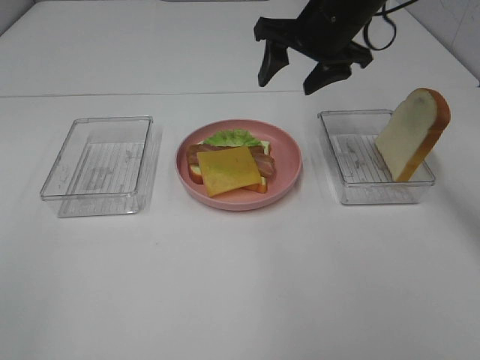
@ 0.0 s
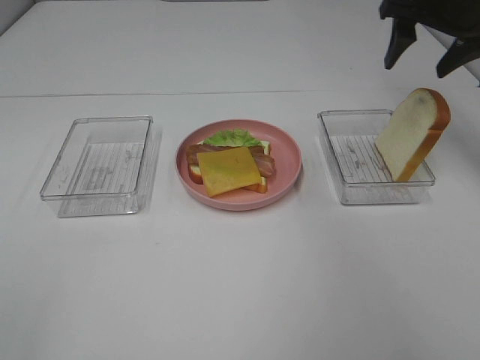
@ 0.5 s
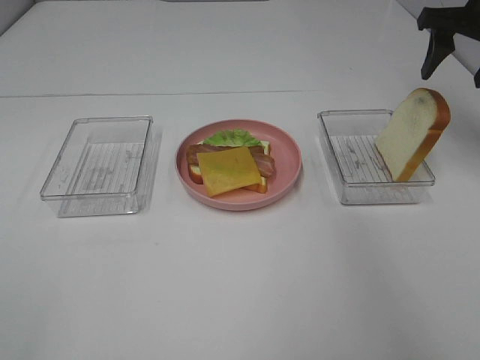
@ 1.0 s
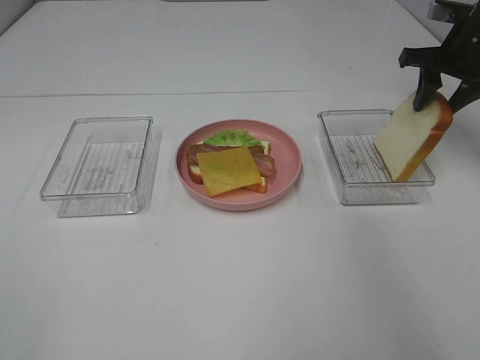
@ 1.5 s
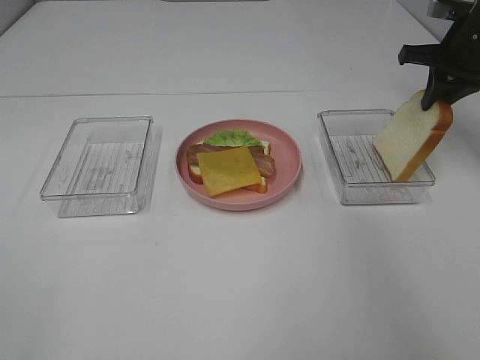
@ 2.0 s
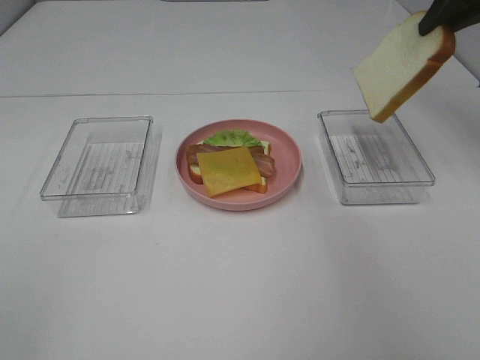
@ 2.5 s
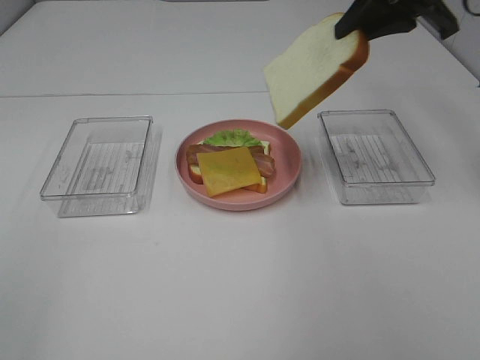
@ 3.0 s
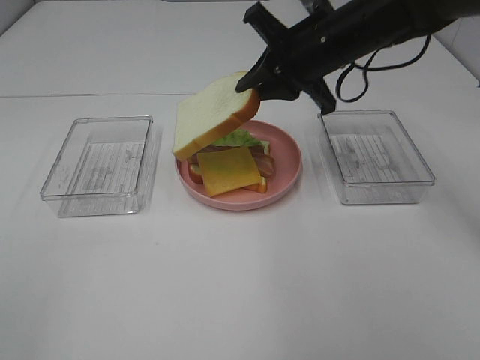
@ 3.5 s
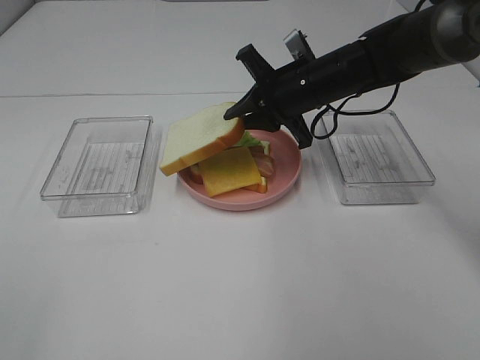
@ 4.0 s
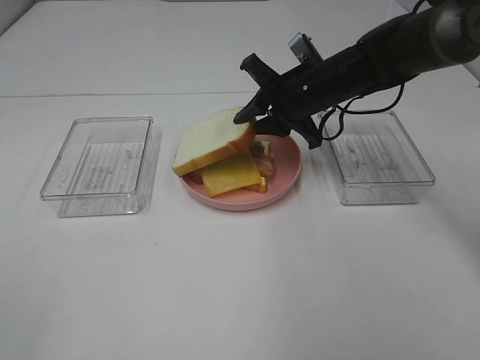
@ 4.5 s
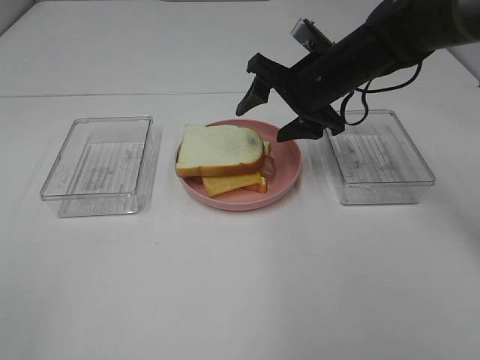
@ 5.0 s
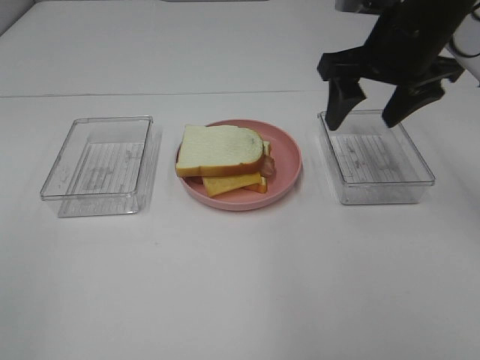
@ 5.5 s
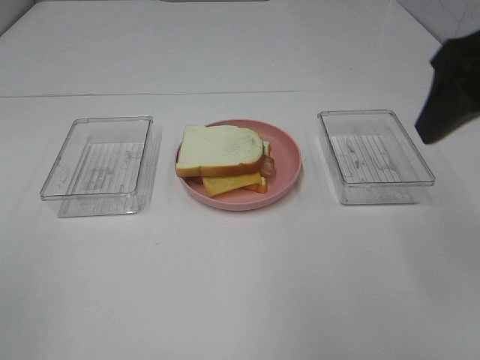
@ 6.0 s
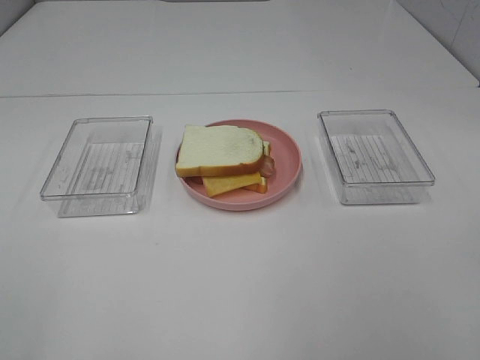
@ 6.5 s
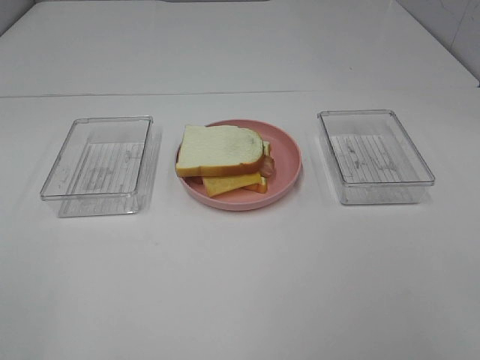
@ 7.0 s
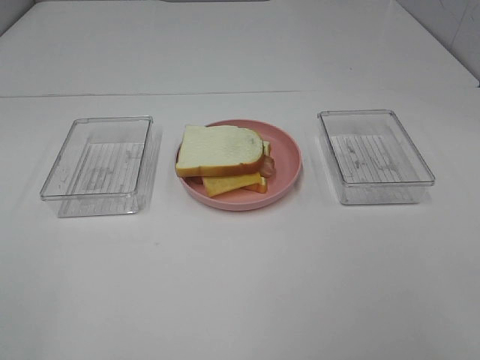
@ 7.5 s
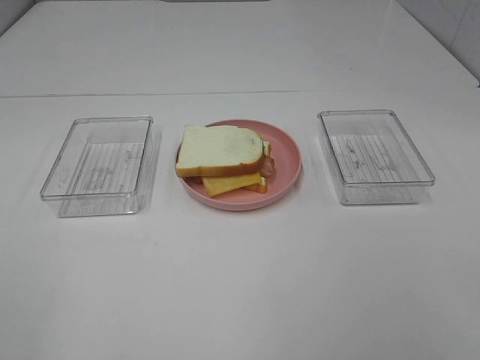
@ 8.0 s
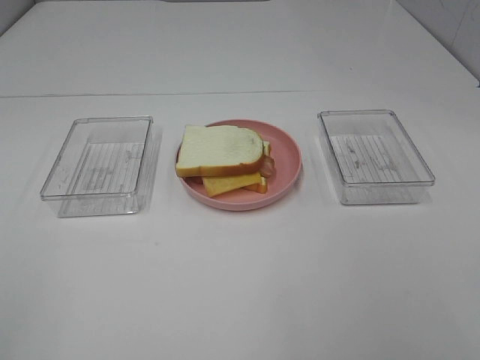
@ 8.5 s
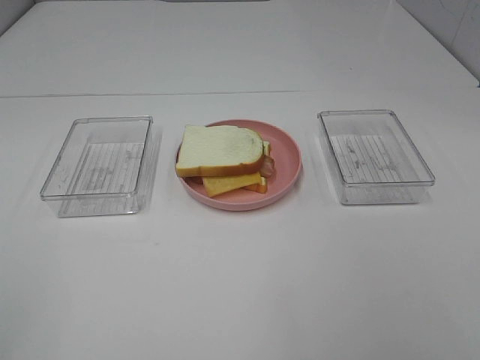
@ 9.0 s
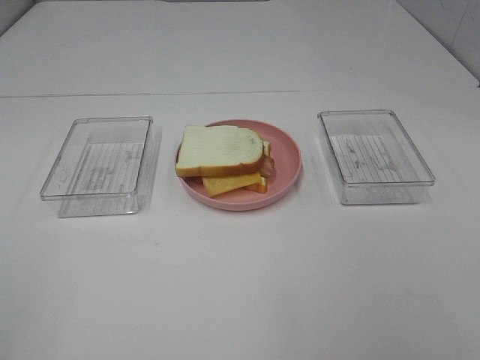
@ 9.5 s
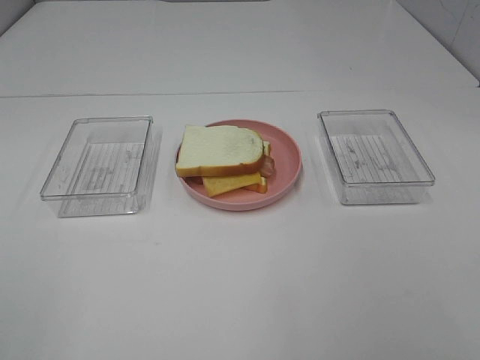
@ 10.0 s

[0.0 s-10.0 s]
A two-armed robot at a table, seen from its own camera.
Task of the whole recording: Make sandwiches.
Step, 0.0 to 2.0 s: Right hand:grab the bread slice.
Step, 2.5 to 5.0 s: Right hand:place the bread slice on the cheese slice.
0.0 to 2.0 s: The right gripper heads to the right, covering approximately 20 cm, and closes.
2.0 to 4.0 s: The right gripper is displaced to the left by roughly 20 cm.
4.0 to 6.0 s: The right gripper is displaced backward, upward and to the right by about 30 cm, and opens its fingers.
6.0 to 8.0 s: The right gripper heads backward, covering some 20 cm.

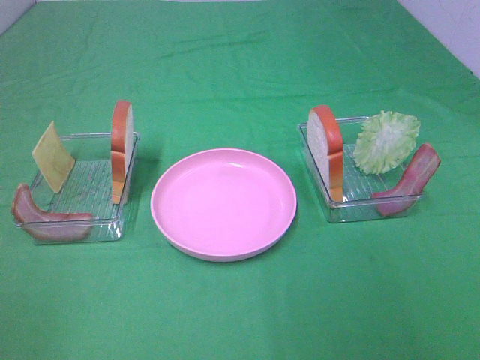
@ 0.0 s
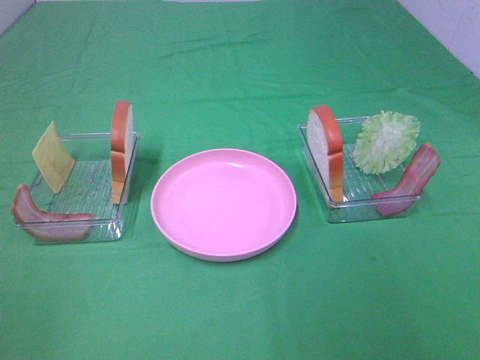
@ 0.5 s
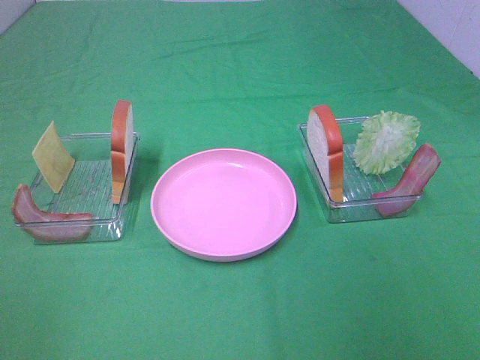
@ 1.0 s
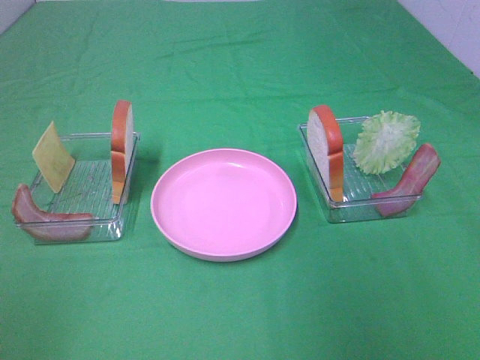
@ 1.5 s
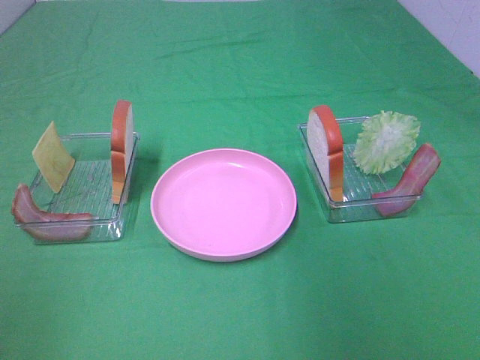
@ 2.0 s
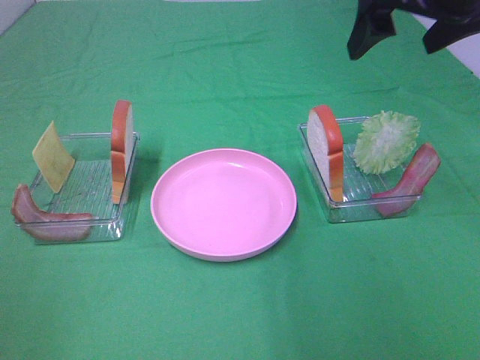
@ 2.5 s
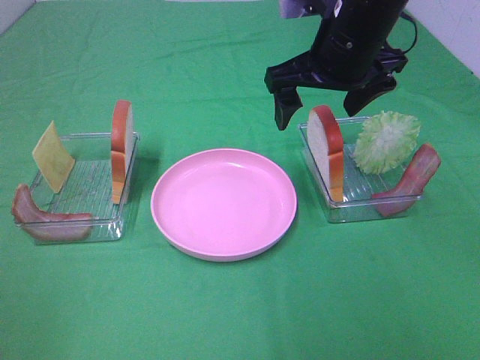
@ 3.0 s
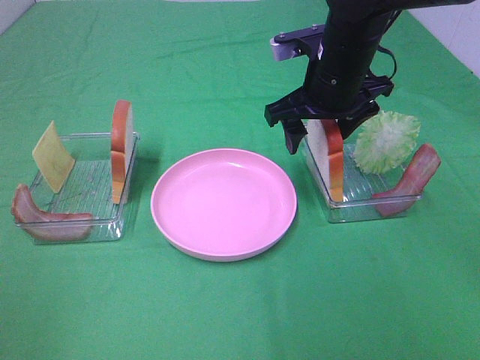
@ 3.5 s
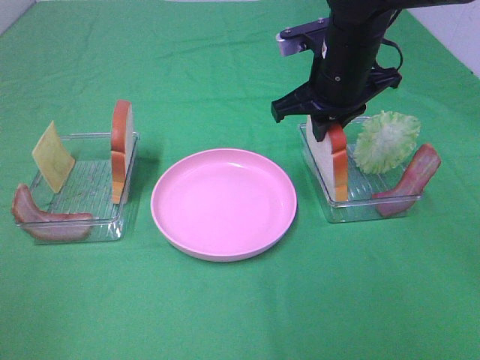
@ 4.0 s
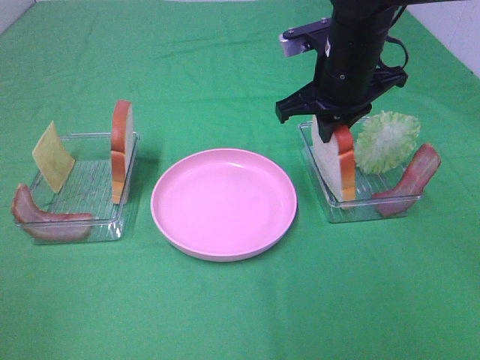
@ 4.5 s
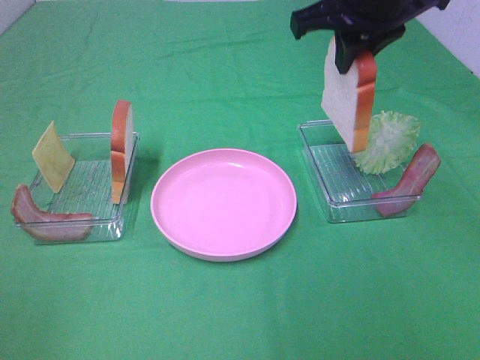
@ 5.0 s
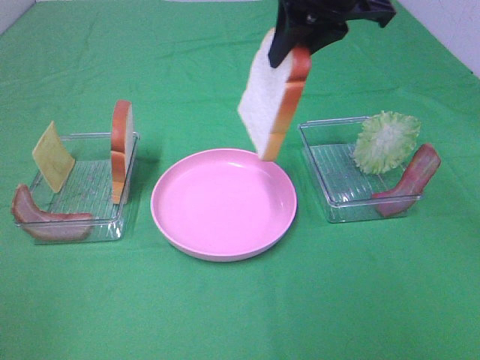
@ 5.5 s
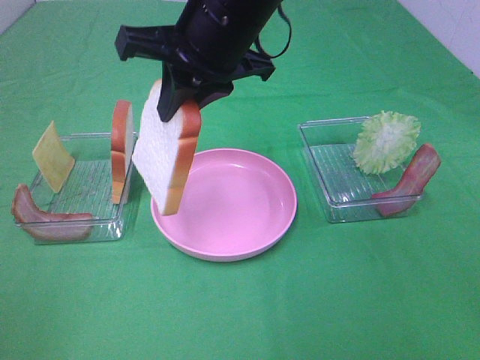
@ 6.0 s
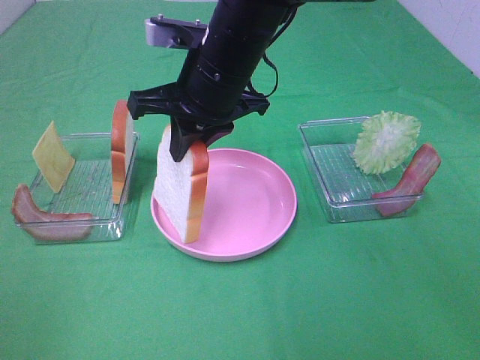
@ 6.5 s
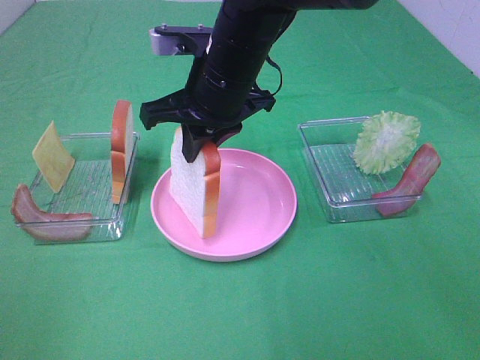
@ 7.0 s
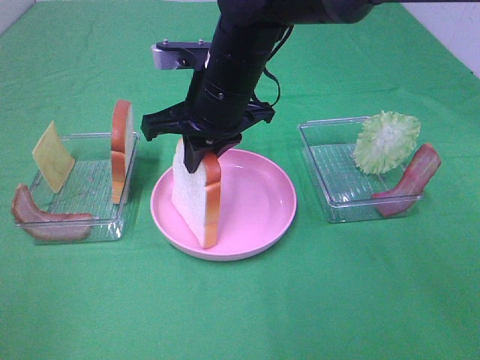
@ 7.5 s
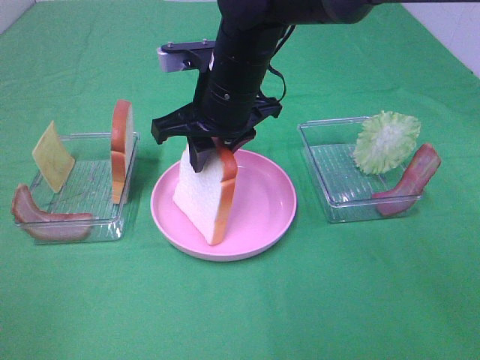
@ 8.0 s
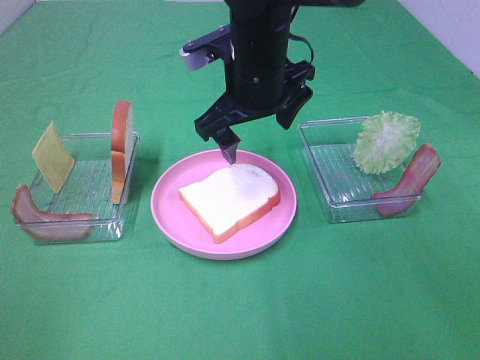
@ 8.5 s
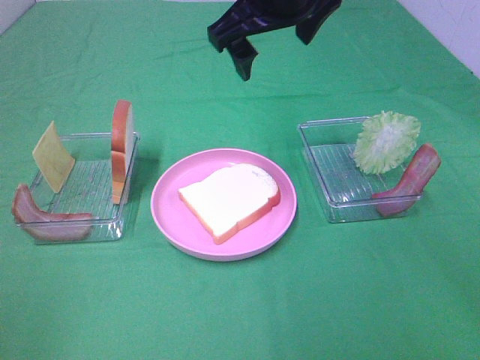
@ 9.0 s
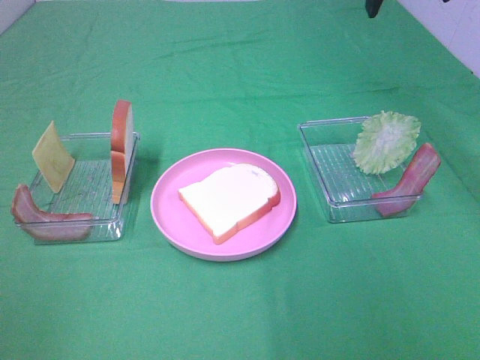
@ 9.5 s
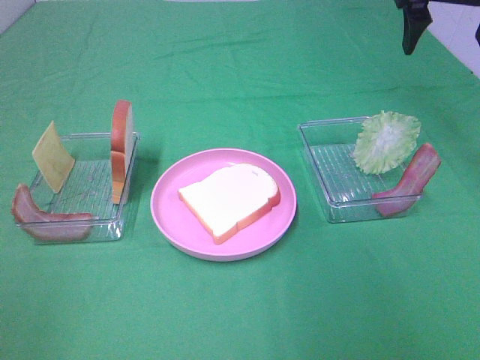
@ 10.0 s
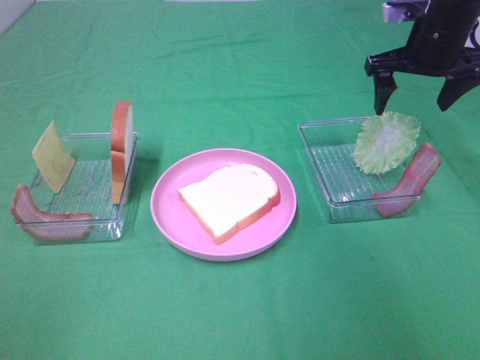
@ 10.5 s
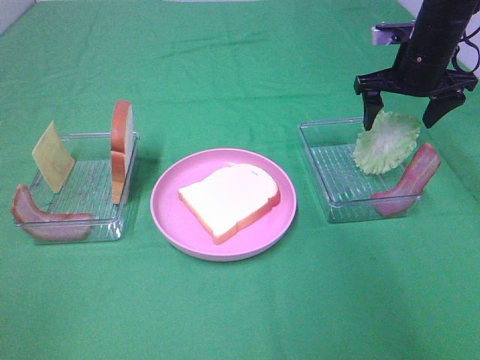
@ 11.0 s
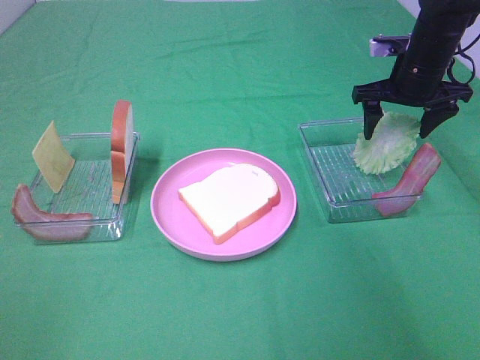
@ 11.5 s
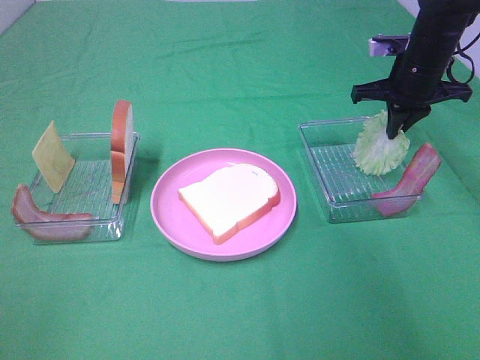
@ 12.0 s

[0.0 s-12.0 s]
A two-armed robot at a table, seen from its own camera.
Task of the whole recording: Make sandwiches.
Step, 0.0 to 4.0 s: Right hand:grab the bread slice.
Step, 4.5 to 8.0 s: Right hand:place the bread slice on the plate.
2.0 to 4.0 s: The right gripper shifts approximately 25 cm downward, to the left and forward, and closes its fingers.
4.0 to 6.0 s: The right gripper goes approximately 15 cm to the left, upward and backward.
6.0 to 8.0 s: The right gripper shifts about 10 cm downward.
8.0 to 10.0 s: The right gripper heads to the right and upward, covering roughly 30 cm, and opens.
10.0 to 12.0 s: The right gripper shifts approximately 15 cm downward, and closes up.

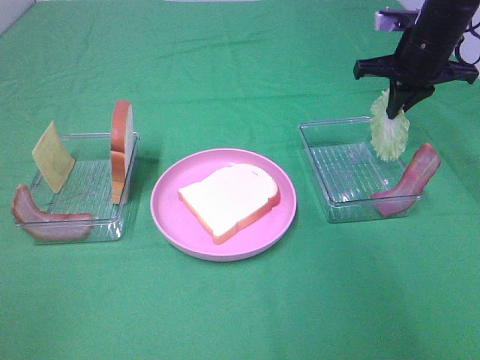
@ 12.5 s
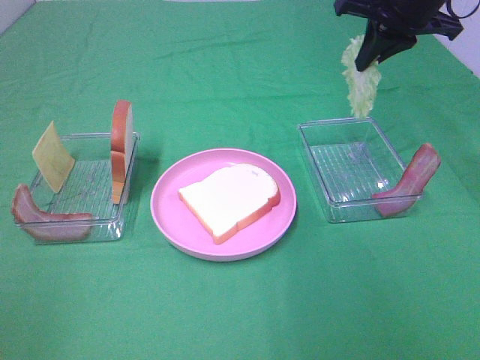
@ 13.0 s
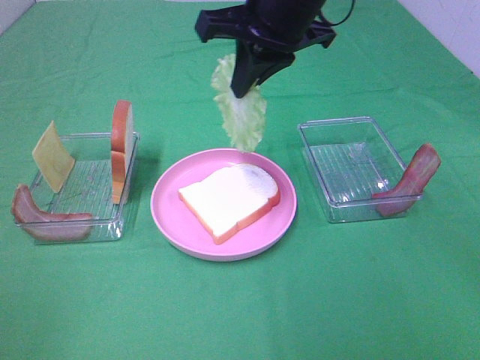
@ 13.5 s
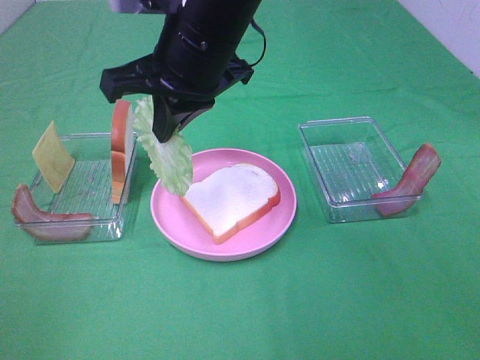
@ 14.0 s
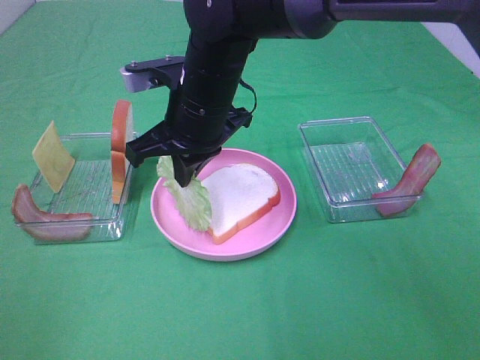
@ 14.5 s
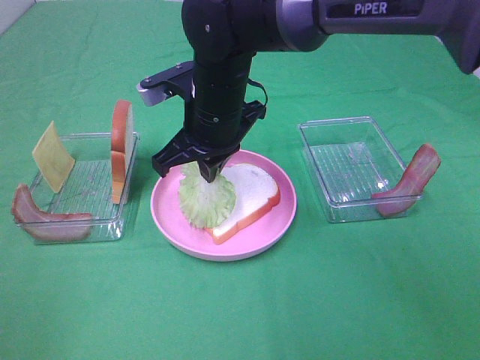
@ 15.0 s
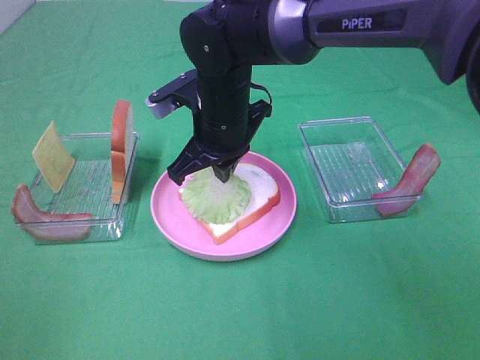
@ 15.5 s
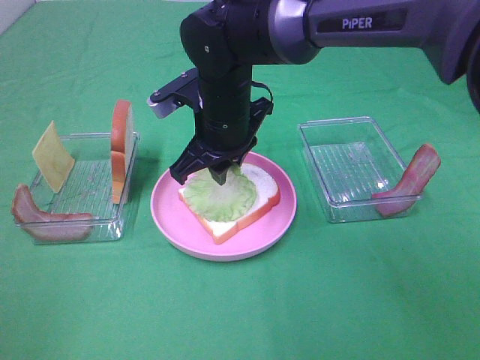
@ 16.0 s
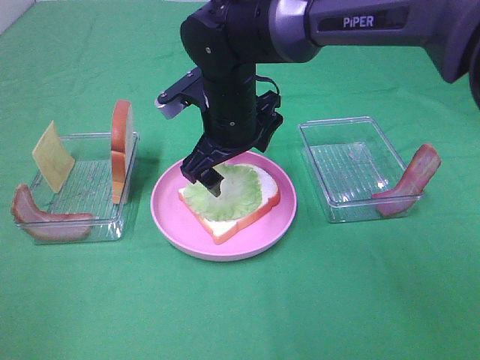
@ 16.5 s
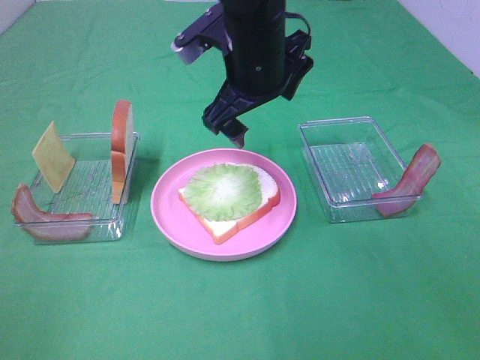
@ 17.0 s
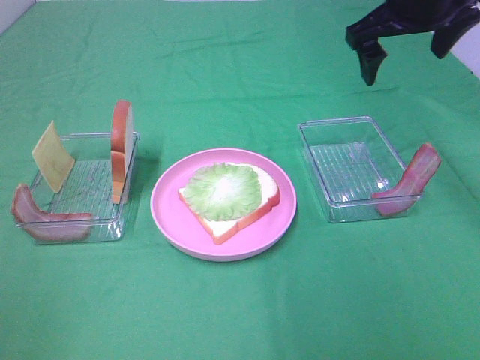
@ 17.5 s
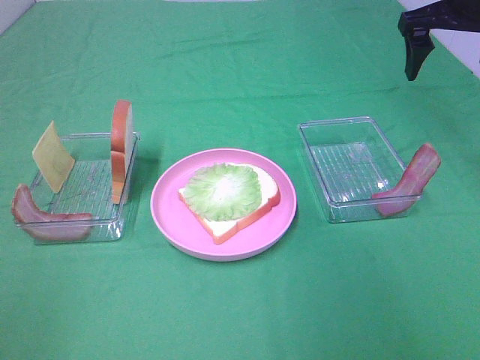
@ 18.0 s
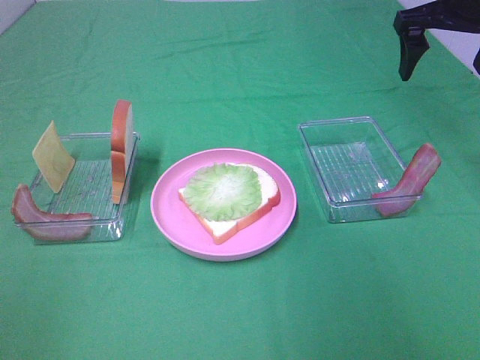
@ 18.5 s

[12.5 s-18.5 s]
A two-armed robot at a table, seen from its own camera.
Task of the whole recording: Make sandwiches.
Step, 12.5 to 16.0 s: Right hand:place the lettuce slice on the bread slice.
12.5 to 14.5 s: The right gripper heads to the left and backward, covering some 30 cm.
14.5 to 16.5 s: The right gripper opens its fingers.
16.5 to 18.5 s: The right gripper shifts roughly 30 cm to the right and upward.
